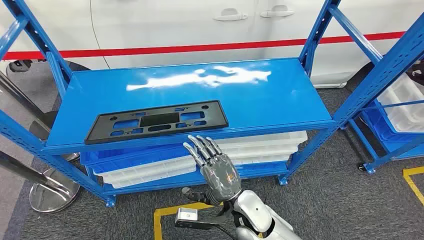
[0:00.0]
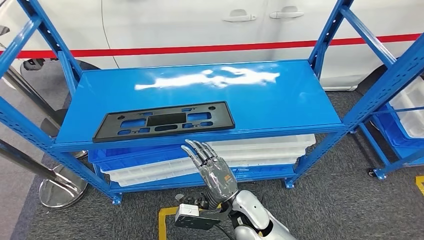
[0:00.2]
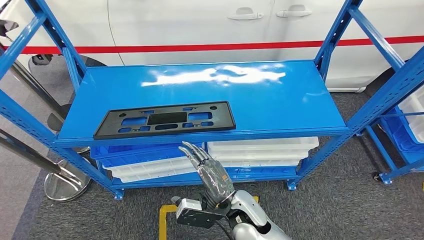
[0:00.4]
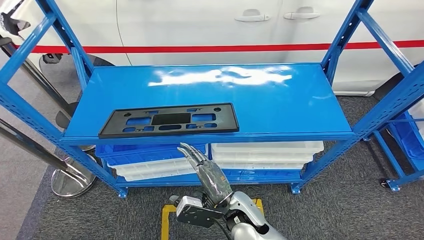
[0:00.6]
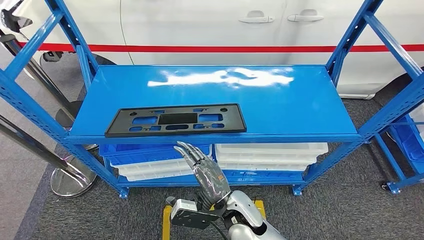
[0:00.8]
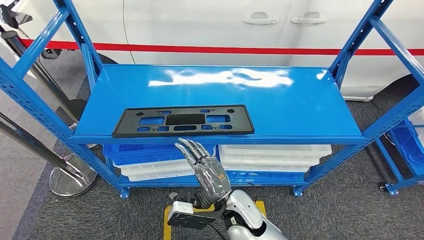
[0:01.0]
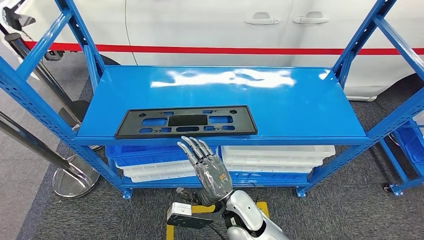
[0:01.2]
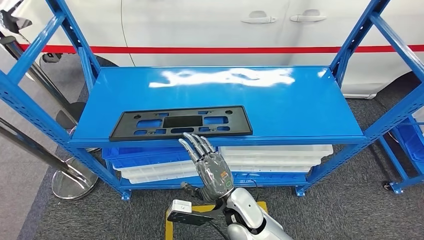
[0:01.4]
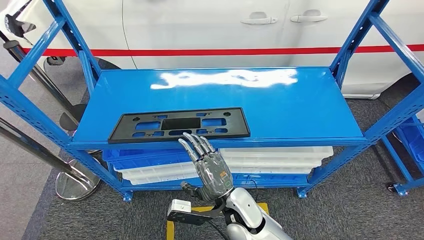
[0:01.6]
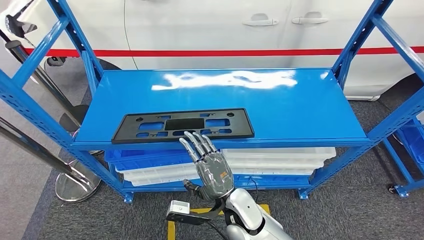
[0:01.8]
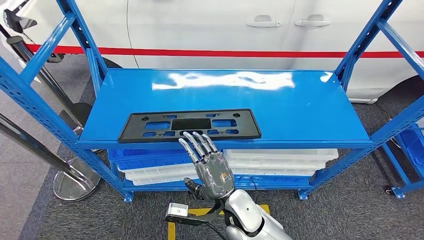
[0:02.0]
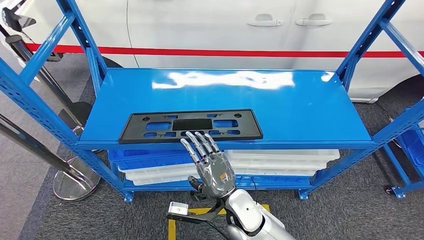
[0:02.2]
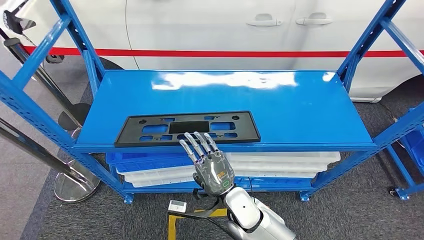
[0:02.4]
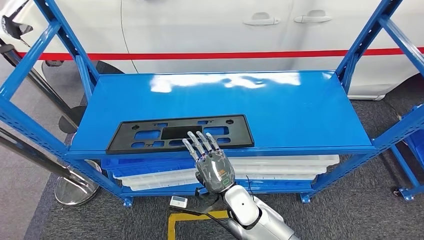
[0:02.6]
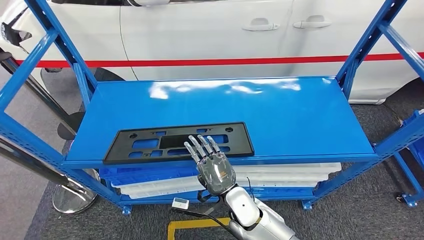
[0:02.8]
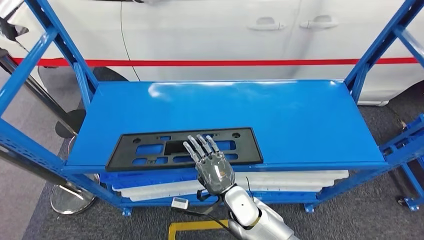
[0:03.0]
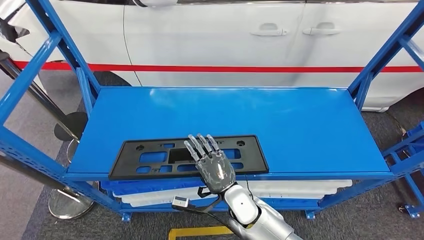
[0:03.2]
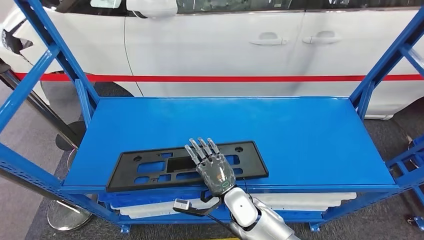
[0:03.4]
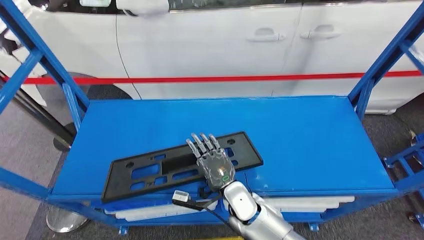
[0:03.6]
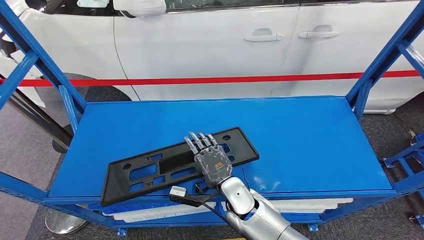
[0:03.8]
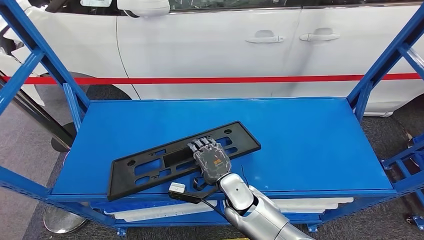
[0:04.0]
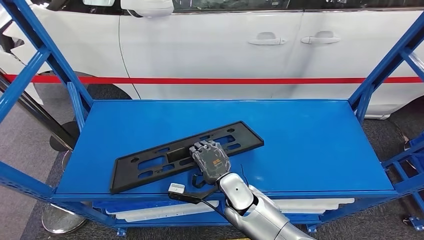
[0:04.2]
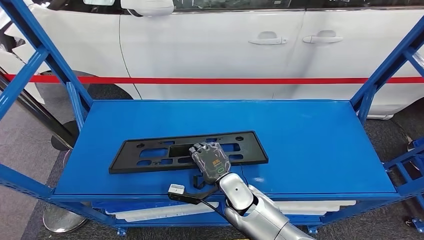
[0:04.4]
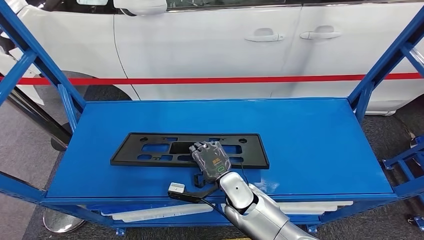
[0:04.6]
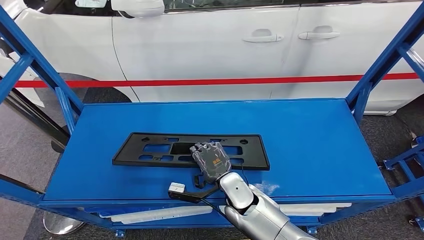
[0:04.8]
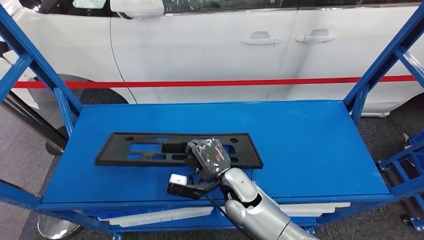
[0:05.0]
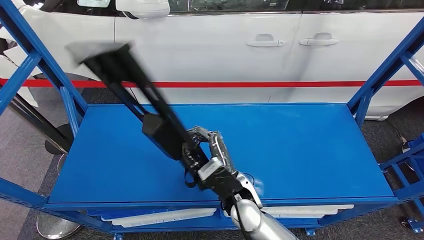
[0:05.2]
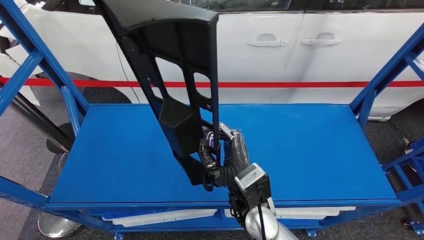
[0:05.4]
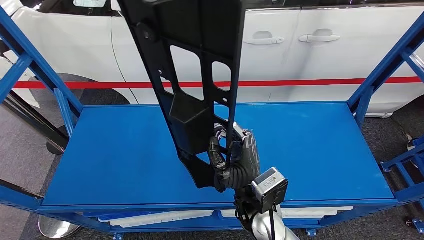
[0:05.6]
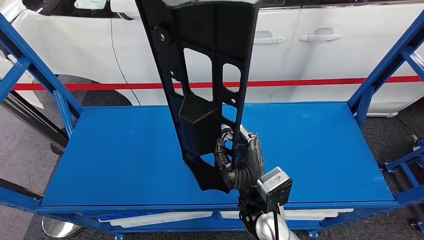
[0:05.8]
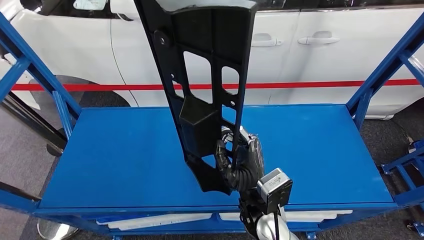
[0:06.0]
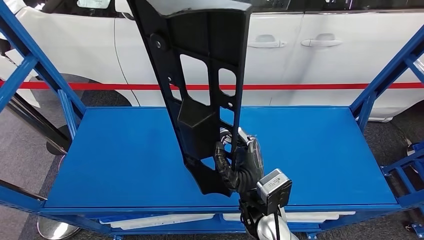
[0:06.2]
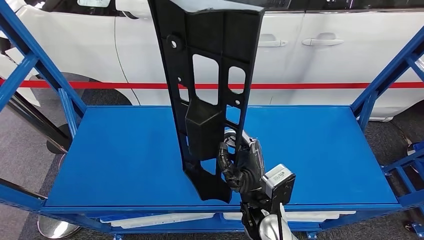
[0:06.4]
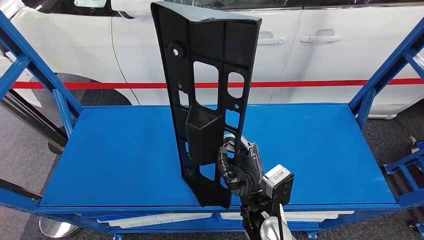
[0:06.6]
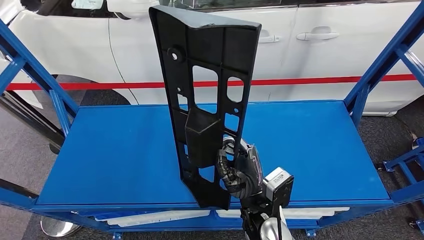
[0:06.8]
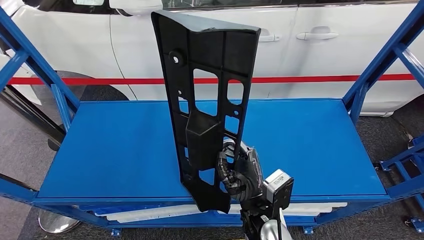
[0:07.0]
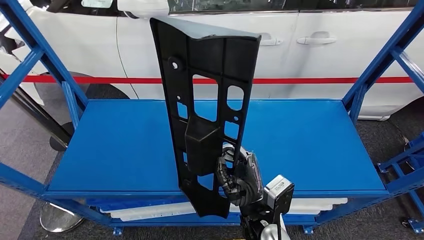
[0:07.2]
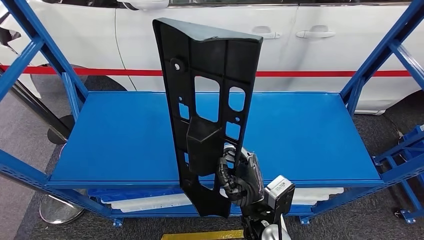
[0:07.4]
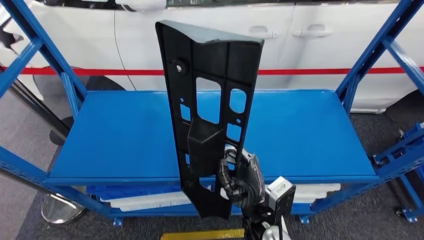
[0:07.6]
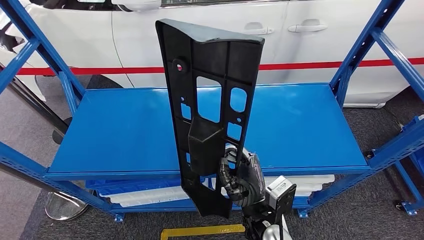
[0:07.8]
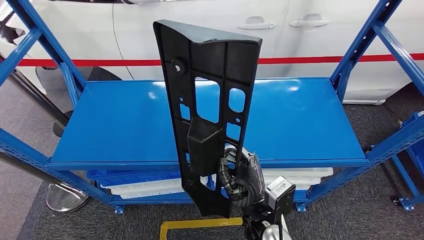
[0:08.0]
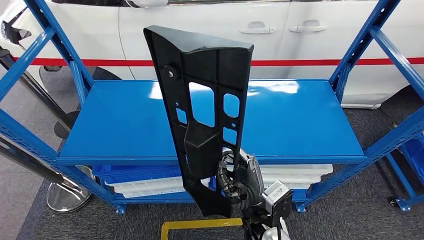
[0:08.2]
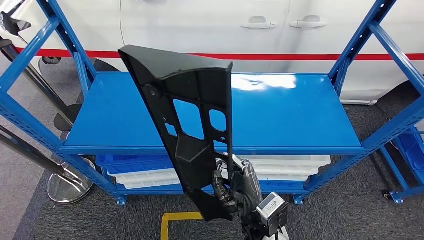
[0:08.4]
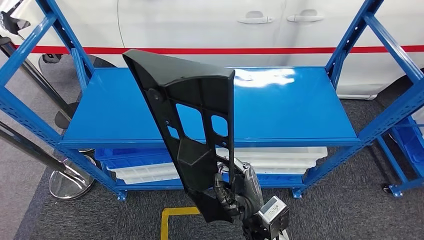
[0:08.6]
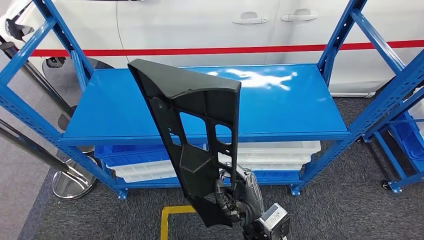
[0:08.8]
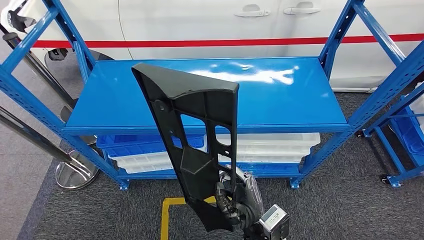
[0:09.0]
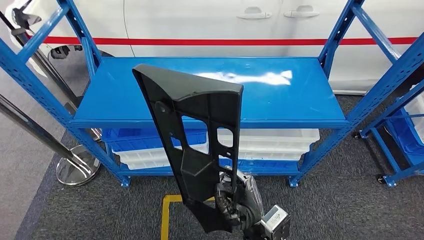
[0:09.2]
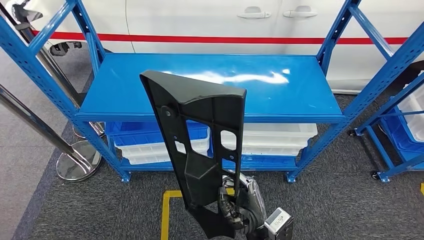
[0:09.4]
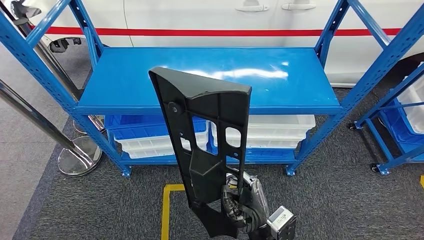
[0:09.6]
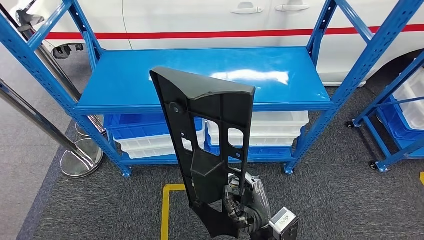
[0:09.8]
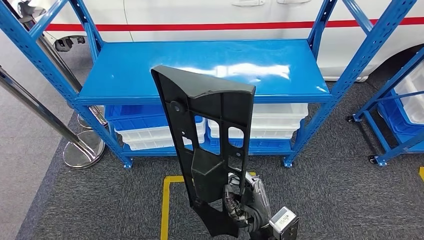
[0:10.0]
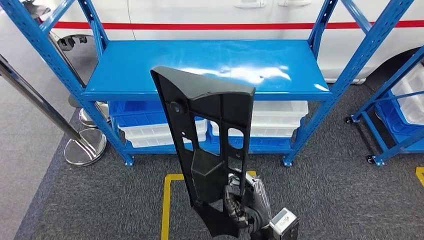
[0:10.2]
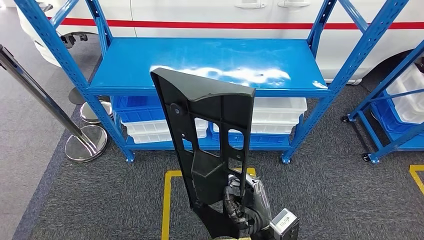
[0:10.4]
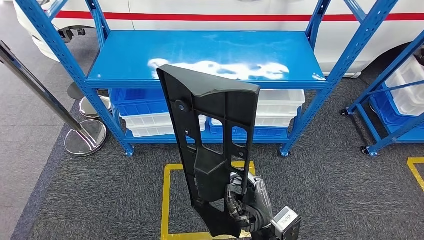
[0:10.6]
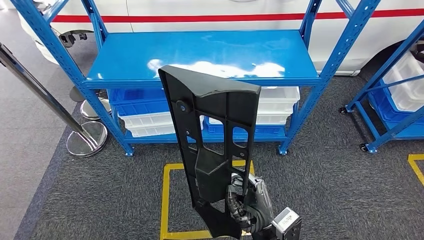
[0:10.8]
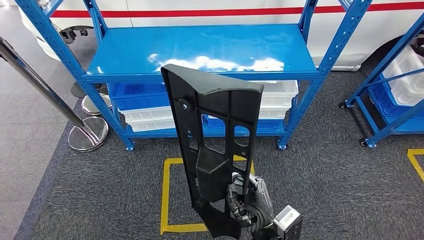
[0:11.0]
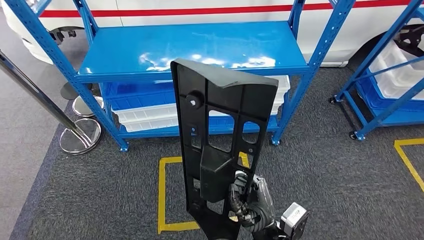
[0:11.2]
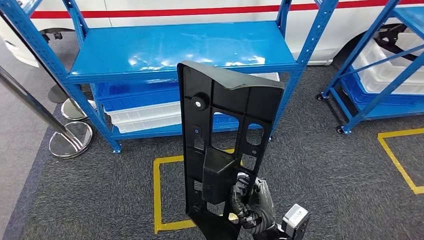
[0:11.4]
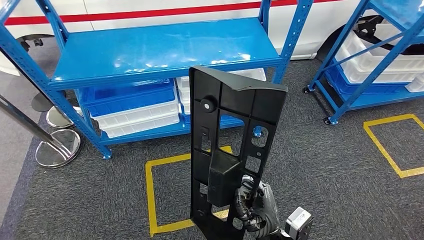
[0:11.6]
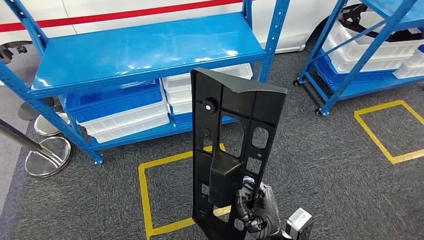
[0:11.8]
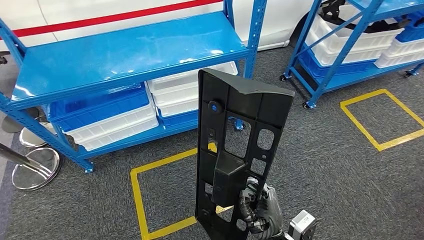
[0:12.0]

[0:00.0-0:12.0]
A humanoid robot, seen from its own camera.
Step, 0:00.0 to 0:05.0: Pick up the large material from the shelf.

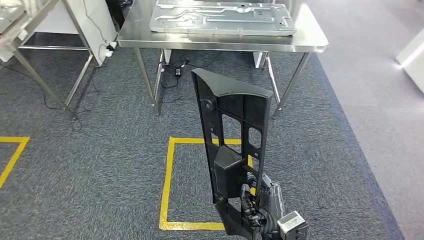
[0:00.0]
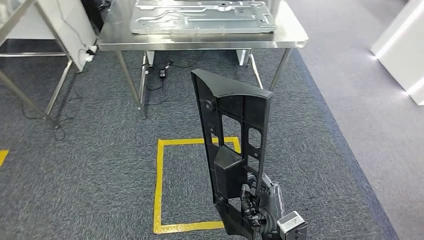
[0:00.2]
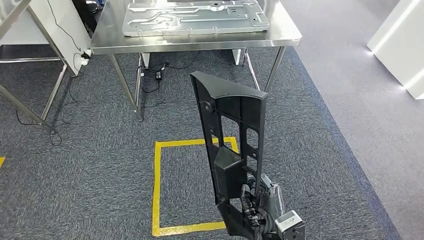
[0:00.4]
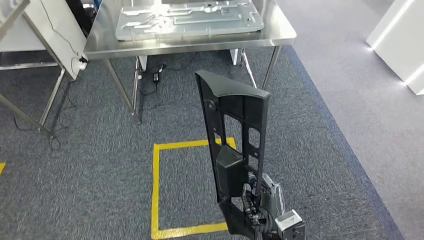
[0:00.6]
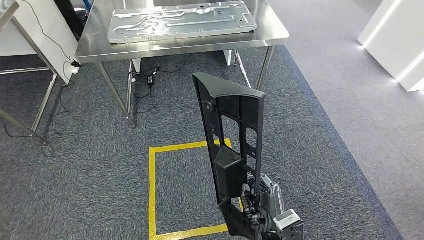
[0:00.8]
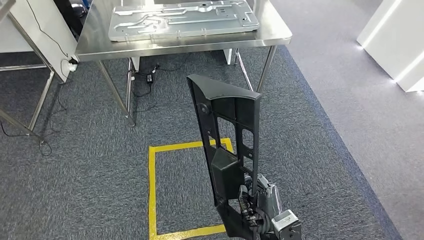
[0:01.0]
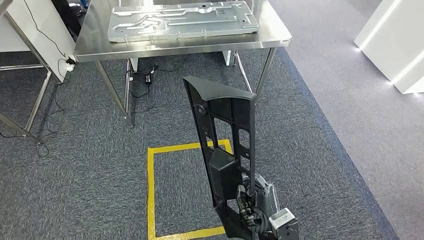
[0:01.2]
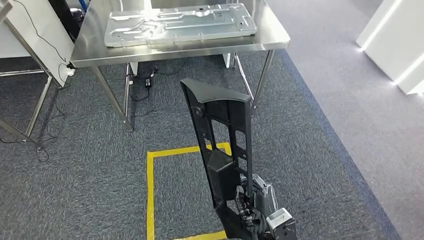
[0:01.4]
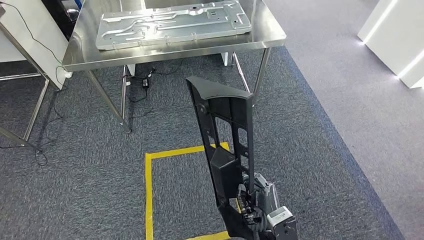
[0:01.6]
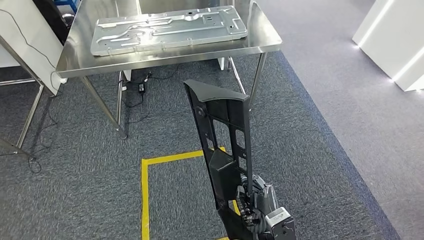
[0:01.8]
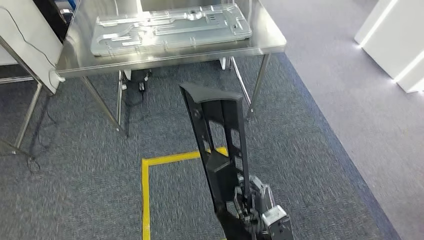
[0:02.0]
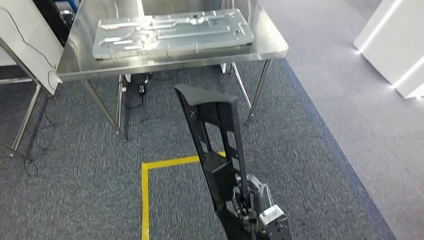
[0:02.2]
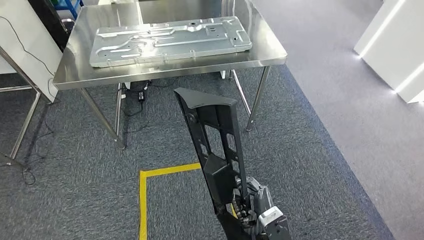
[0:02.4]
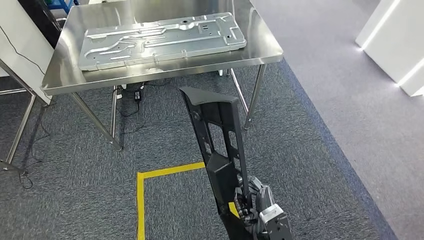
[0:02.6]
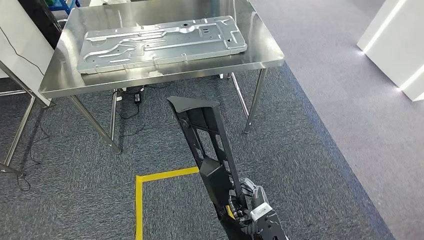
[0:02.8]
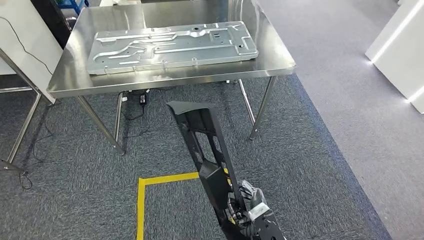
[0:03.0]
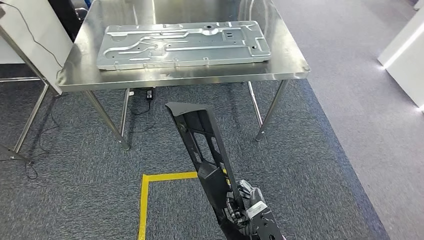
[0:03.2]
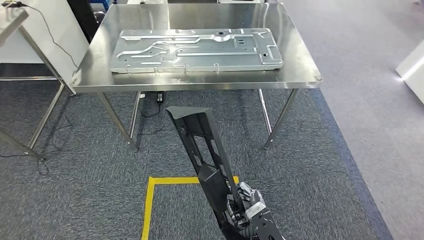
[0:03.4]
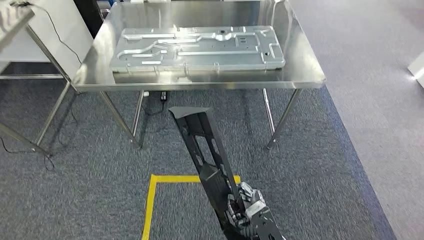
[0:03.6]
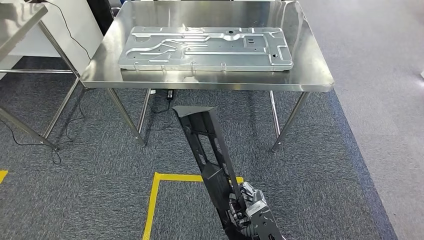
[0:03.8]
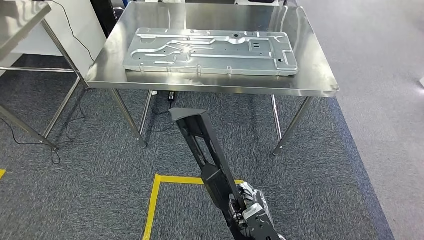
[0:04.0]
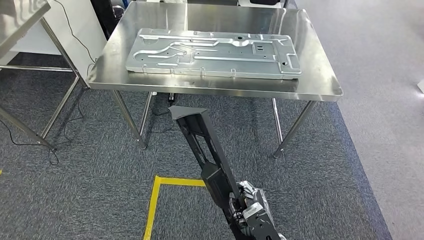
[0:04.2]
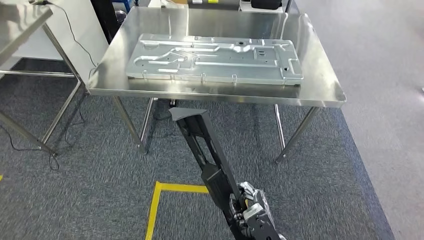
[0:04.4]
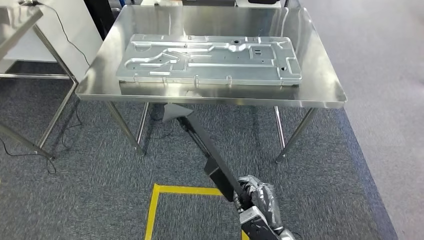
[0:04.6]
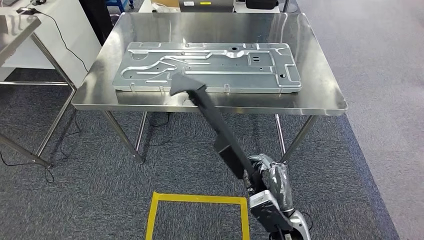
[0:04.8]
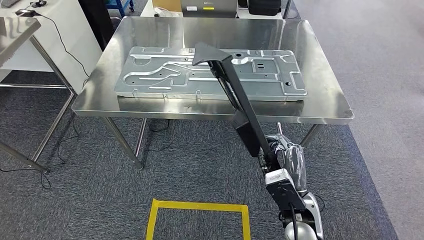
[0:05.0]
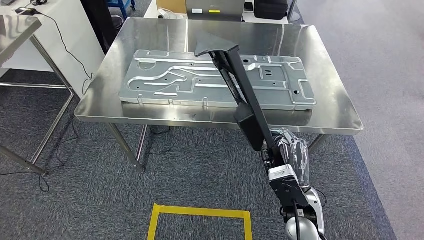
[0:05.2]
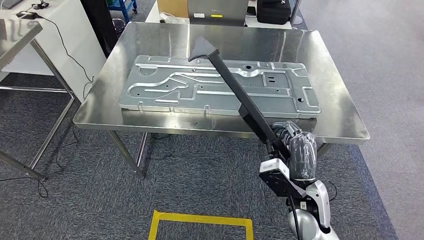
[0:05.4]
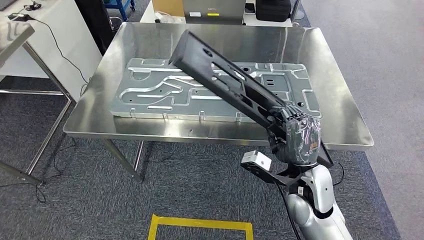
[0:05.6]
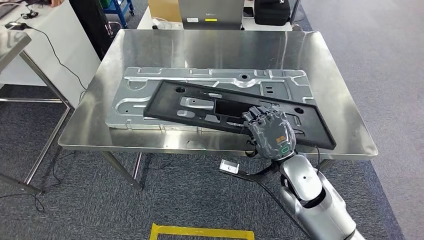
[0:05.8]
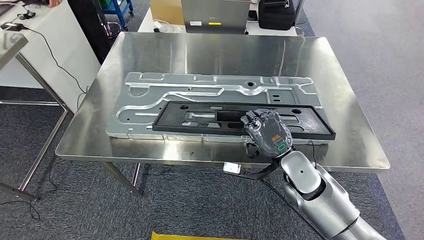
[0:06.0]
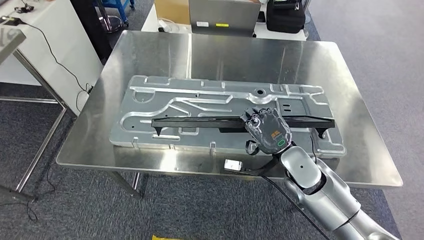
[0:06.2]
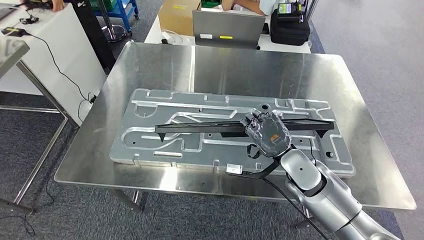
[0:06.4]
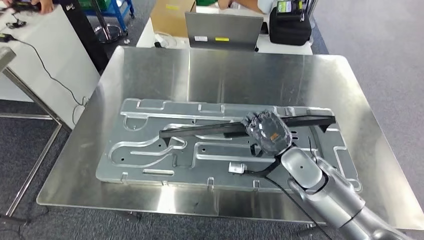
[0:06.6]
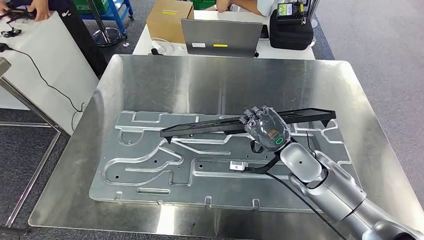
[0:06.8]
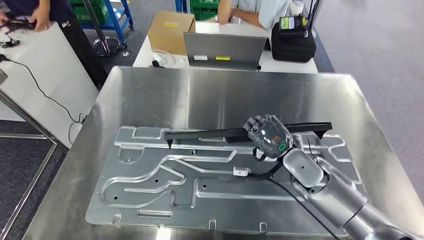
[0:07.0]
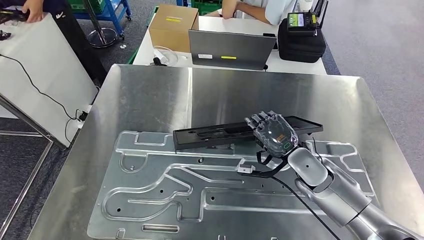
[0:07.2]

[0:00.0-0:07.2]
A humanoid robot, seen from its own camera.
Step, 0:00.0 to 0:05.2: Move the large material to the workbench.
